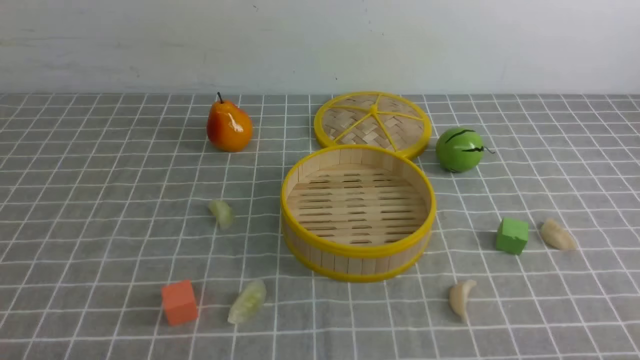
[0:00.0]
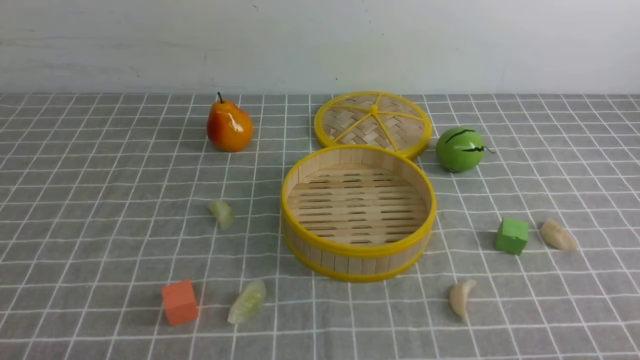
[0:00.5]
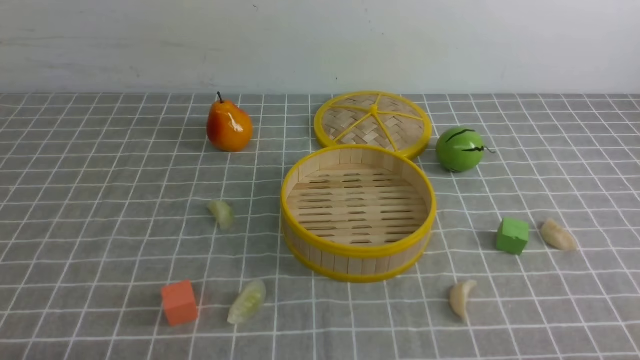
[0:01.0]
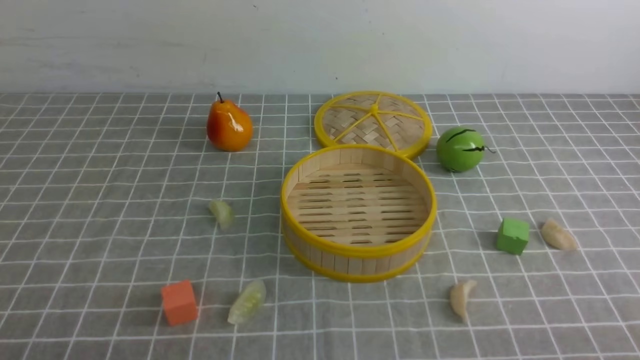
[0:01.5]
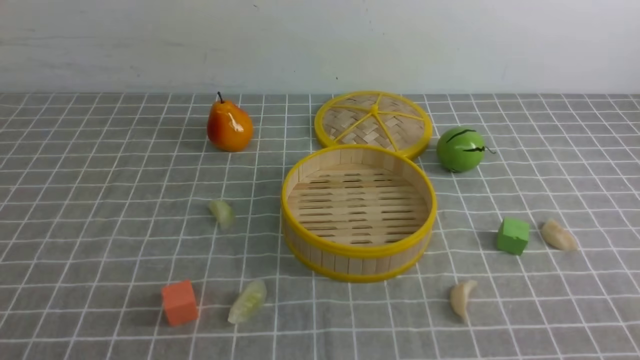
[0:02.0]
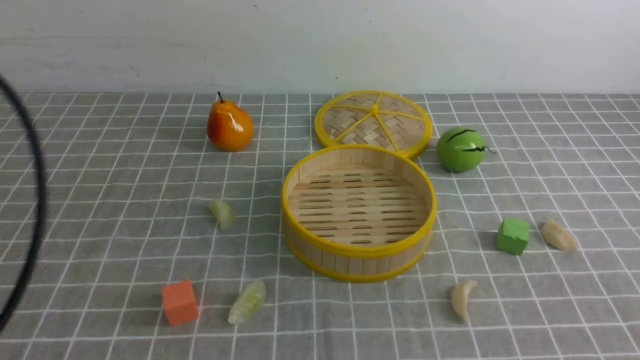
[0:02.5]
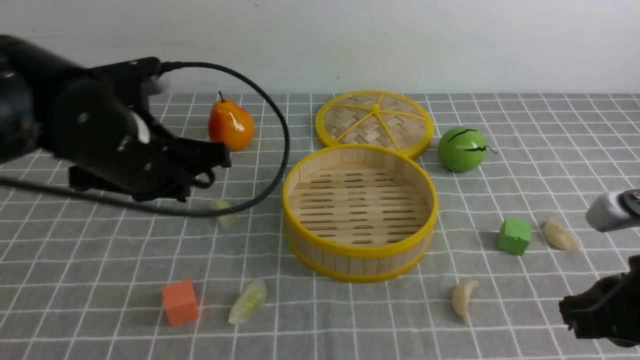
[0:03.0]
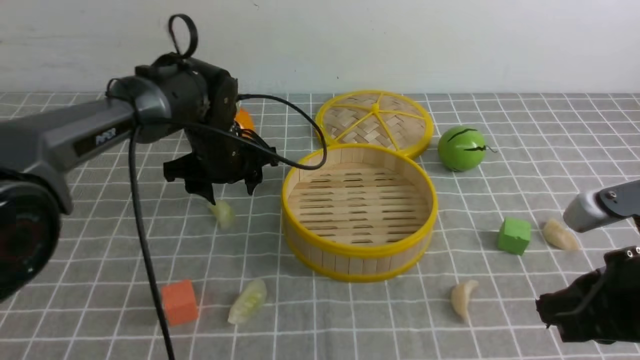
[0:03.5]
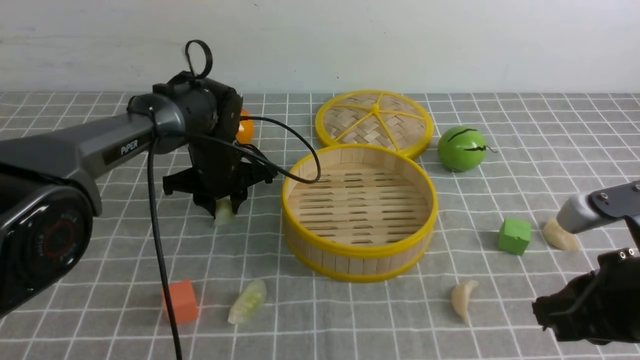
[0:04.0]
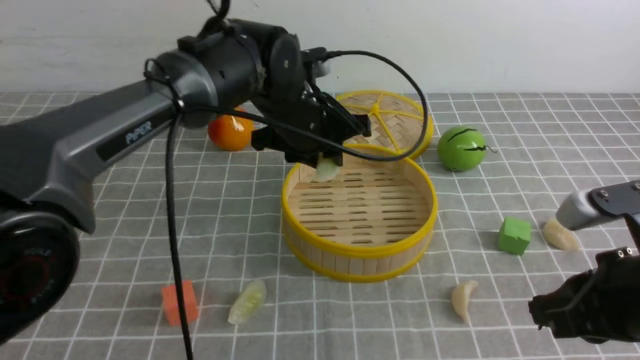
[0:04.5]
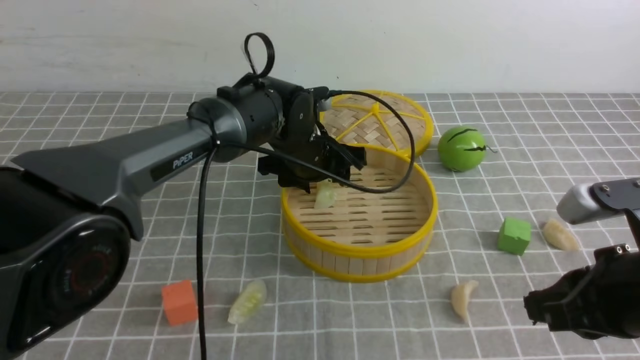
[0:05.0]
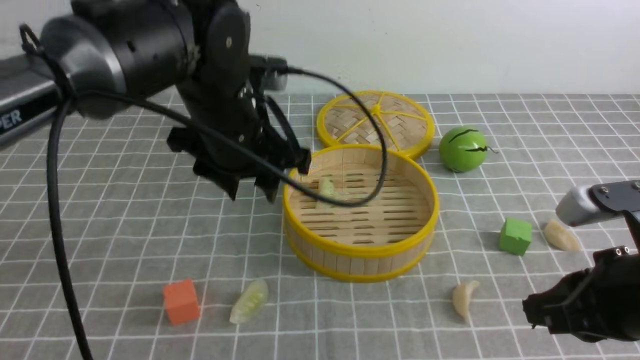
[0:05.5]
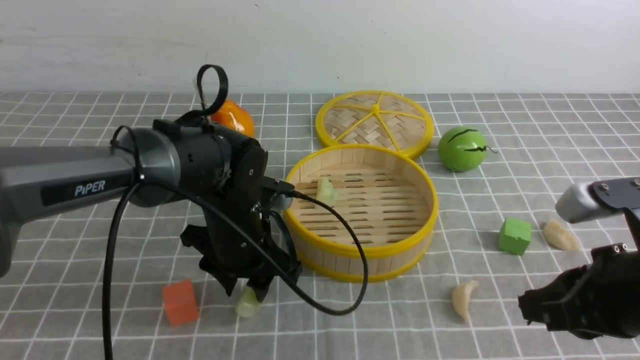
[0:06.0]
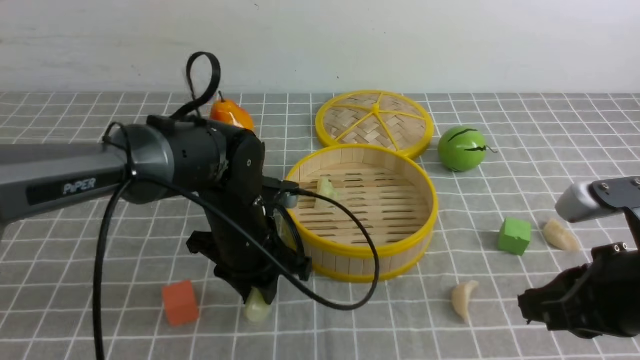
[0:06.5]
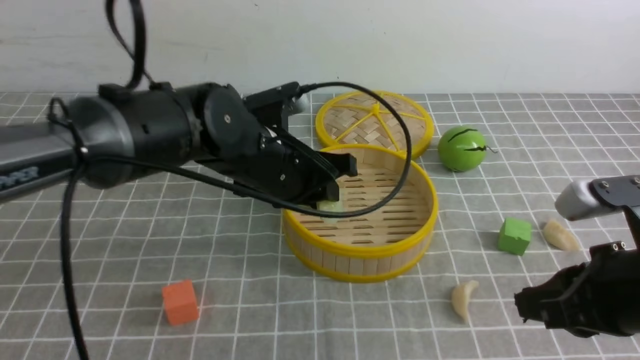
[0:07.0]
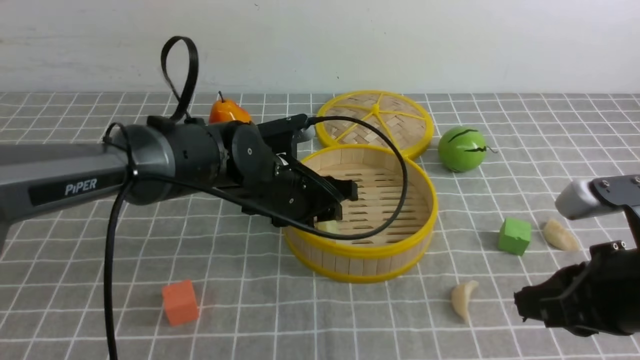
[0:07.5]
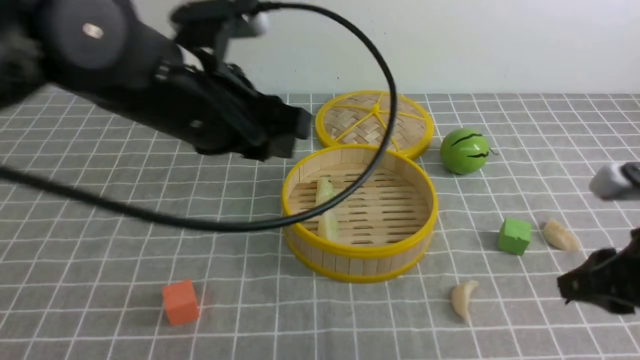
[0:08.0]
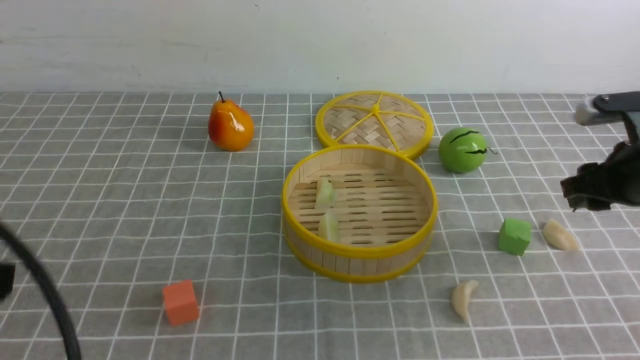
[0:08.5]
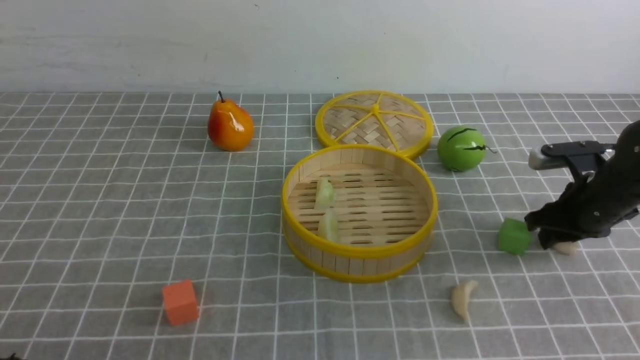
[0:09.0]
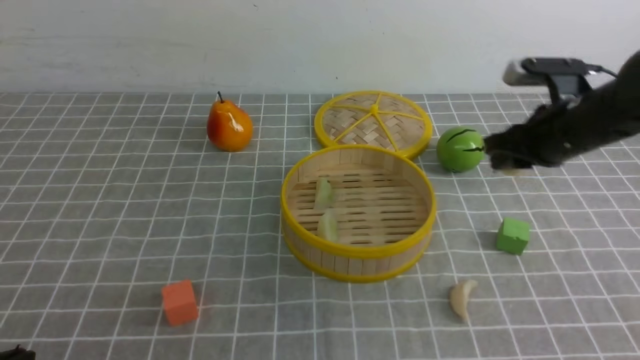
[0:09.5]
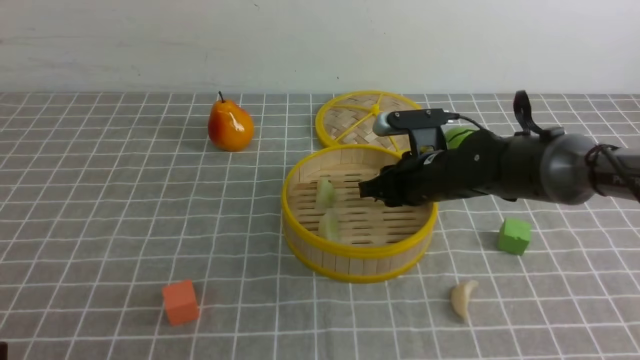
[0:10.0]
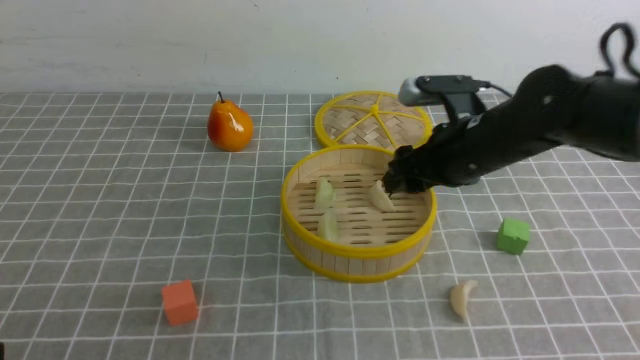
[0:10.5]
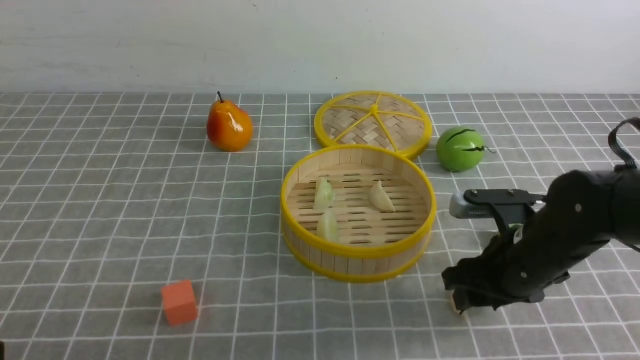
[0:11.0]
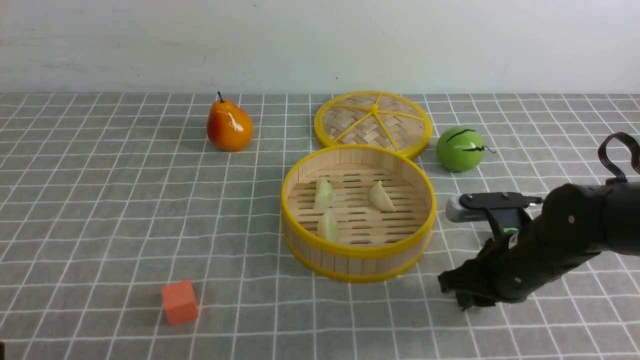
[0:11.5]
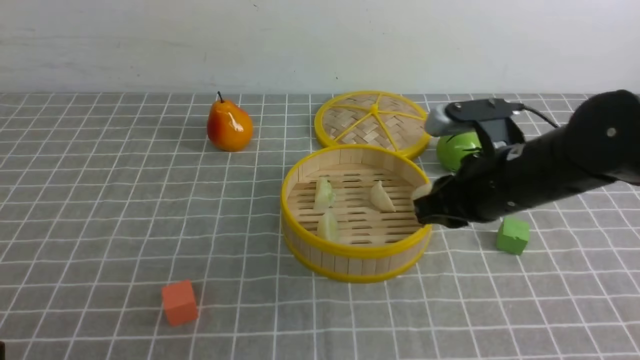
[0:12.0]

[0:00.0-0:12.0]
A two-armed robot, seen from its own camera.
Task of the whole recording: put the dumplings into the steamer on the table with the grey tablecloth.
Step, 0:00.0 to 0:04.0: use the left arm to grab a dumpling.
Step, 0:04.5 to 0:05.0: use the left arm to put the dumpling into the steamer.
Step, 0:05.5 to 0:06.5: use the left arm to grab a dumpling.
Step, 0:07.0 to 0:07.5: use the left arm to put the dumpling into the steamer.
Step, 0:08.0 to 0:09.0: use the right arm to grab a dumpling.
Step, 0:09.5 to 0:10.5: use the right arm to put the dumpling into the steamer.
Step, 0:11.0 to 0:11.5: use the right arm to grab a dumpling.
0:02.0 to 0:04.0: The left gripper travels forward by some 40 cm, and closes, then opens again. The right gripper shifts about 15 cm forward and to the left.
0:04.0 to 0:06.0: The left gripper is displaced backward by roughly 10 cm.
0:06.0 to 0:08.0: The left gripper travels upward by roughly 20 cm.
0:08.0 to 0:10.0: The left gripper heads backward, to the left and downward, covering about 30 cm, and closes up, while the right gripper shifts roughly 25 cm forward, to the left and downward.
0:10.0 to 0:12.0: The right gripper shifts some 10 cm backward and upward, and opens and closes again.

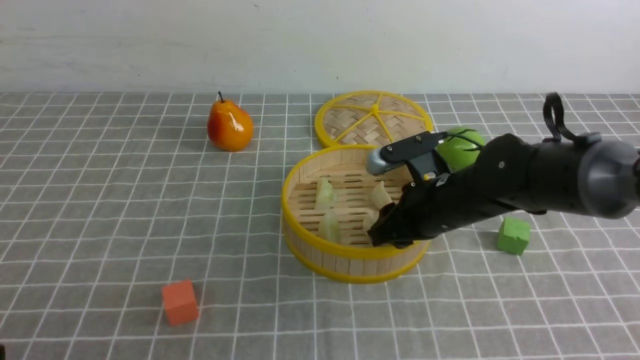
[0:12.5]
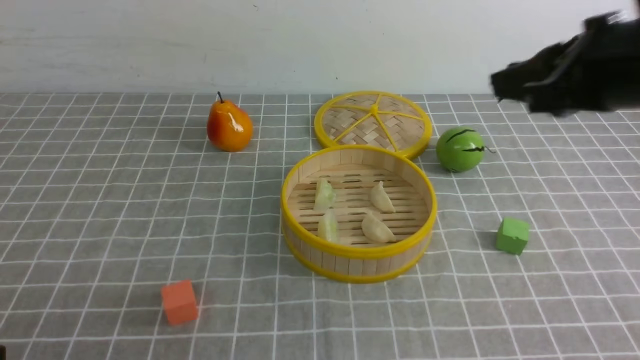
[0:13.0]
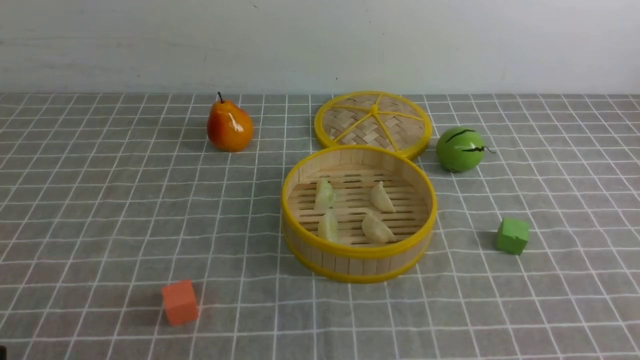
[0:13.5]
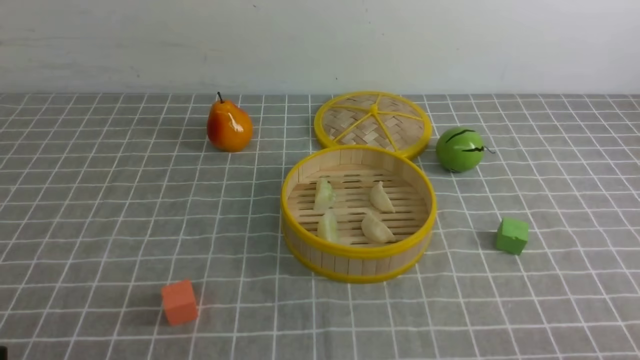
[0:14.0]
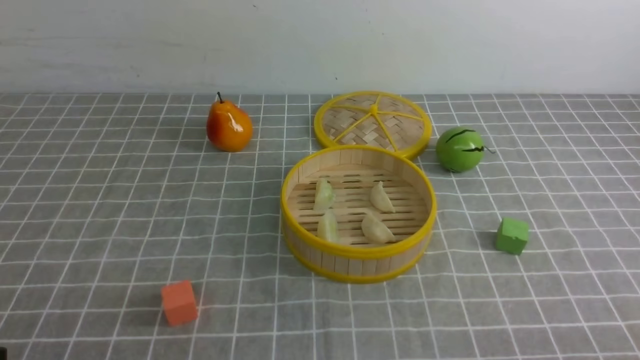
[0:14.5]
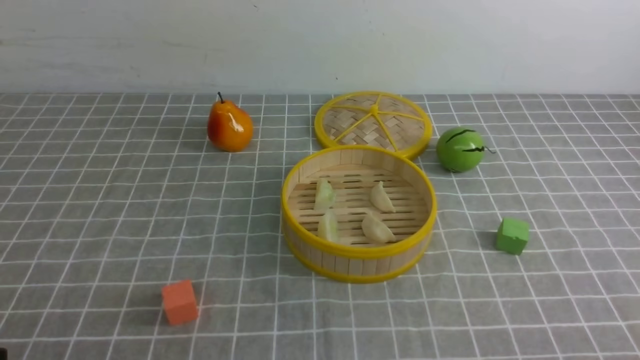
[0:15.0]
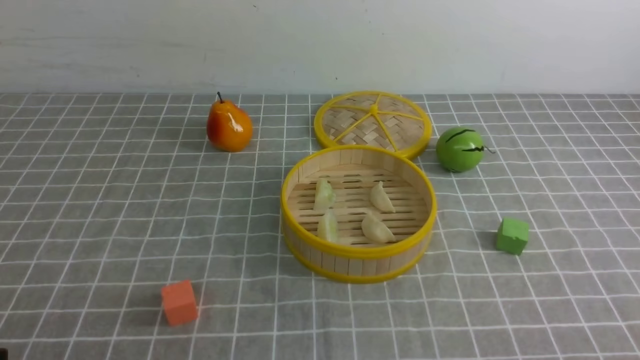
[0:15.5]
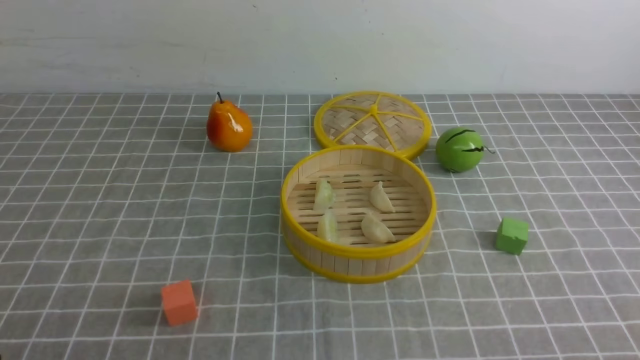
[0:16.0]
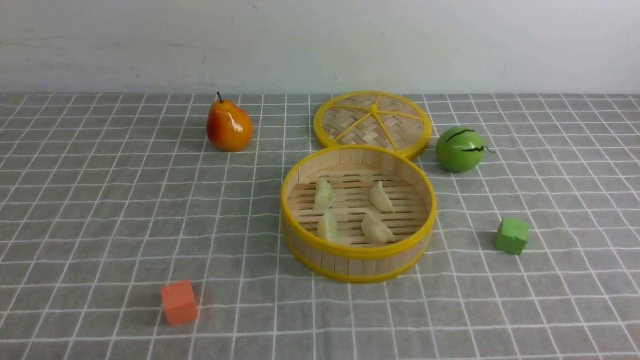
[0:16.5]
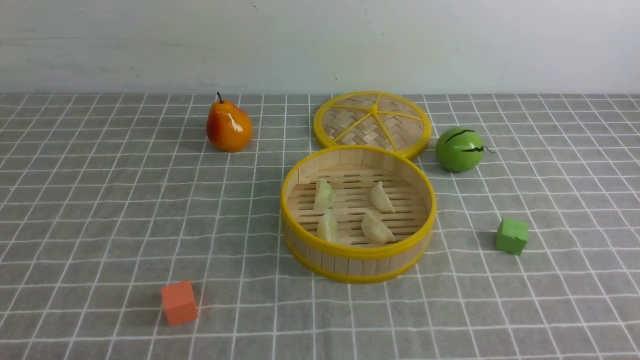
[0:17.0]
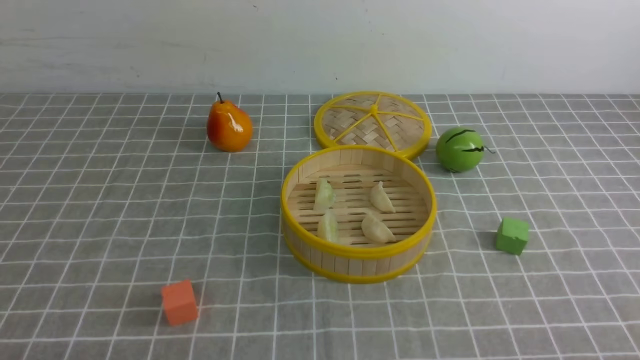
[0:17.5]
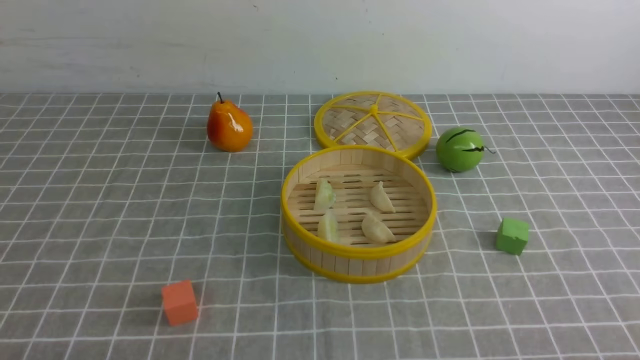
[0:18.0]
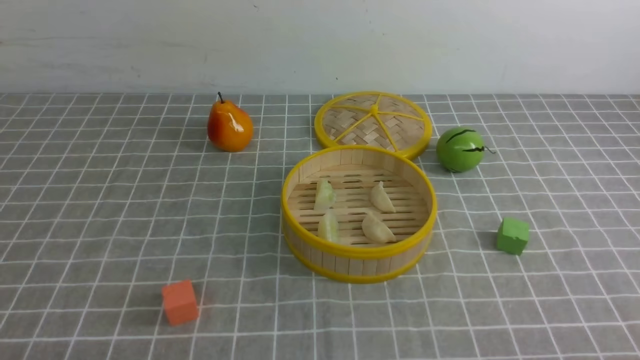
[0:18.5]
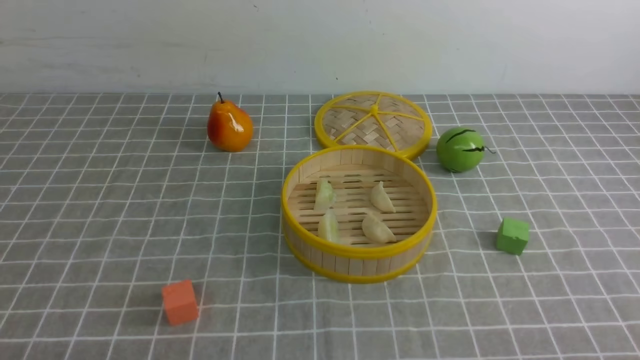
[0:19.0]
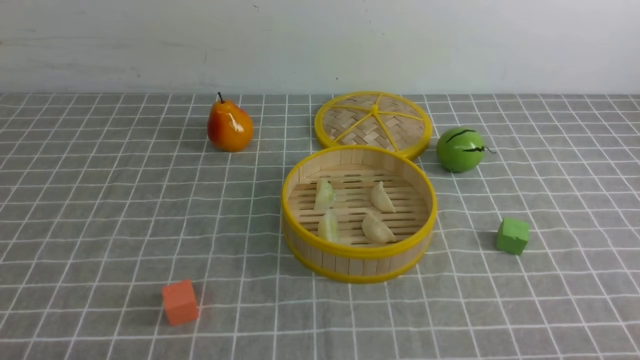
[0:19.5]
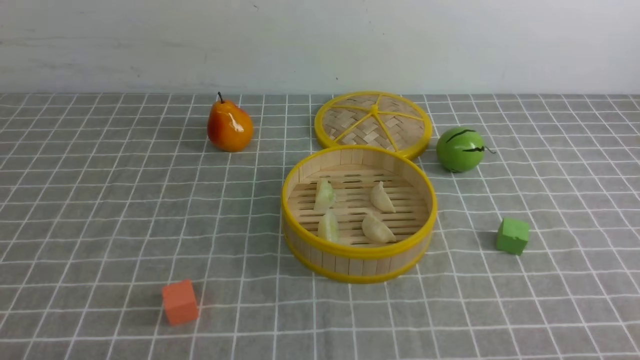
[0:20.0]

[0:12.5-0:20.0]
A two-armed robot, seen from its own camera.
Task of the whole recording: put the dumplings into the steamer on the table with the grey tablecloth.
0:12.5 to 0:14.5: The right gripper travels backward and to the right by about 35 cm, and closes.
0:18.0 to 0:20.0: Both grippers stay put.
